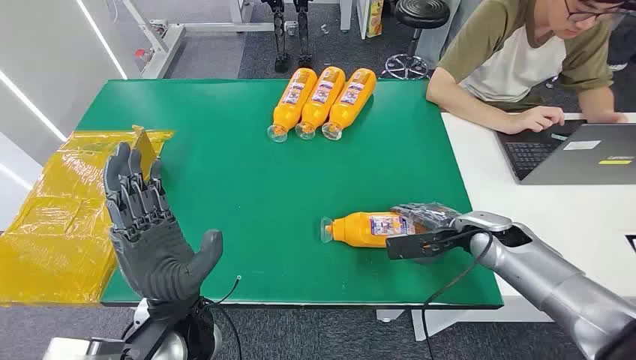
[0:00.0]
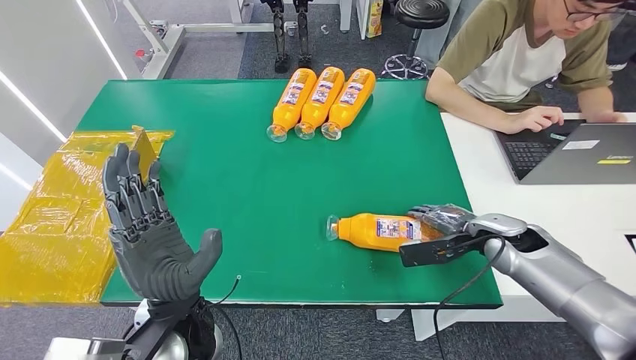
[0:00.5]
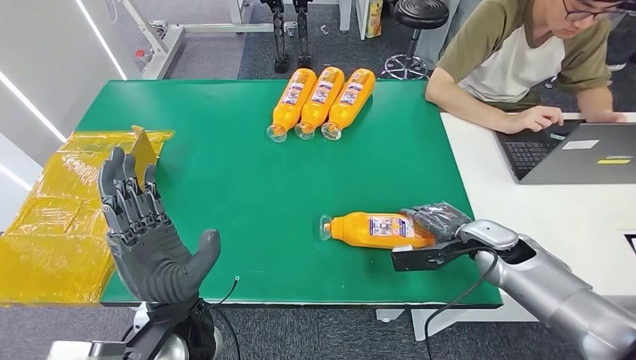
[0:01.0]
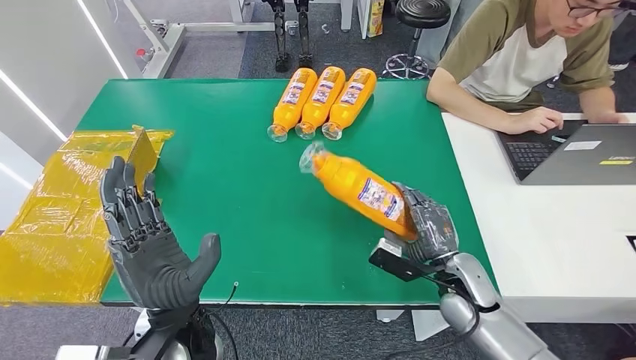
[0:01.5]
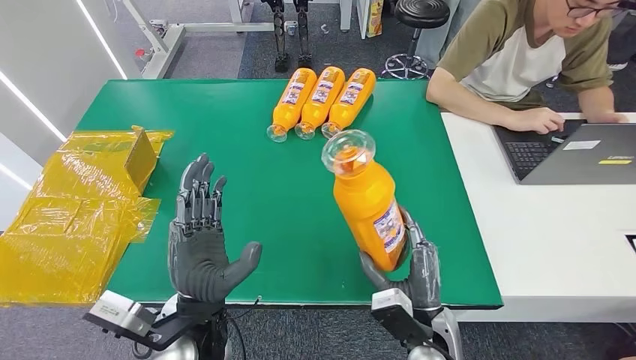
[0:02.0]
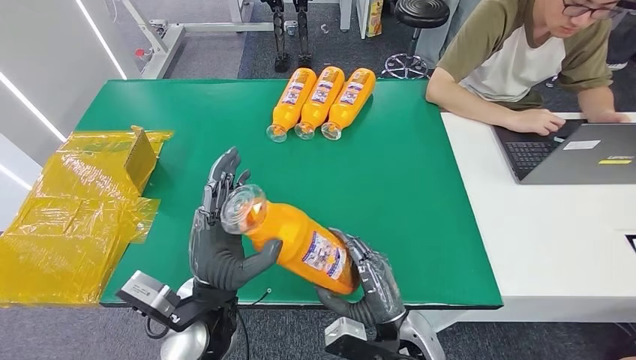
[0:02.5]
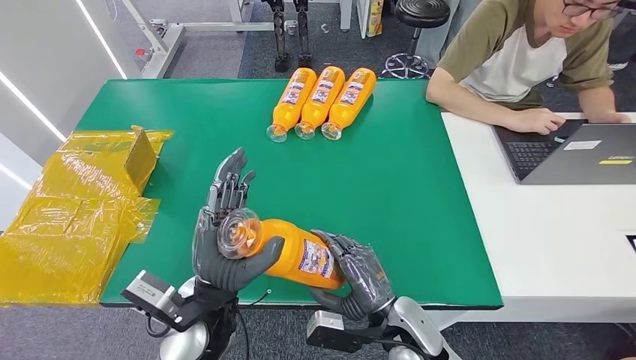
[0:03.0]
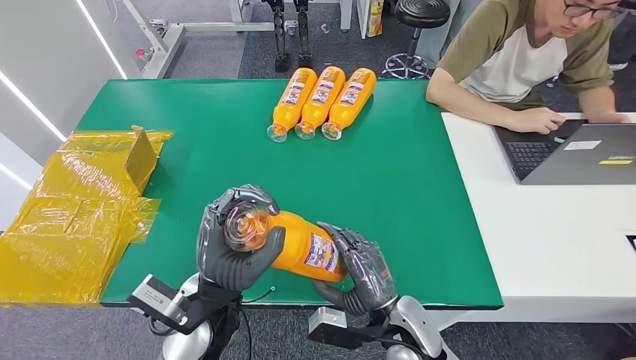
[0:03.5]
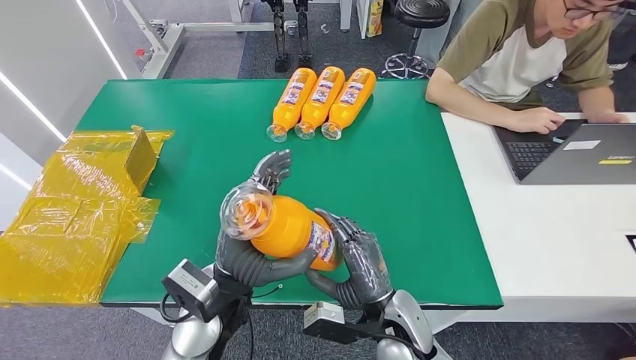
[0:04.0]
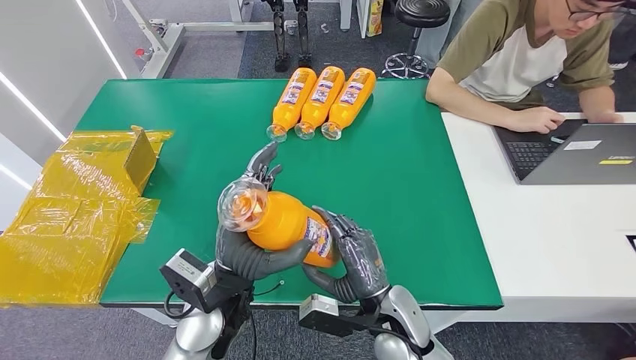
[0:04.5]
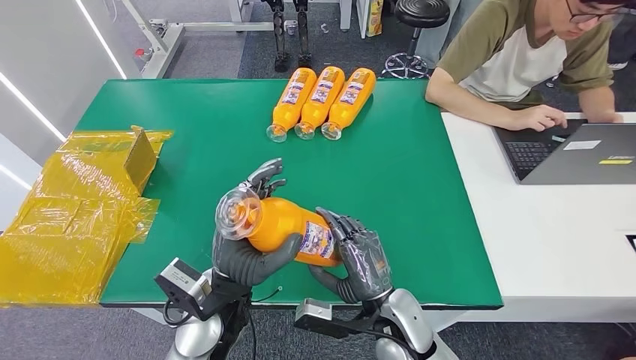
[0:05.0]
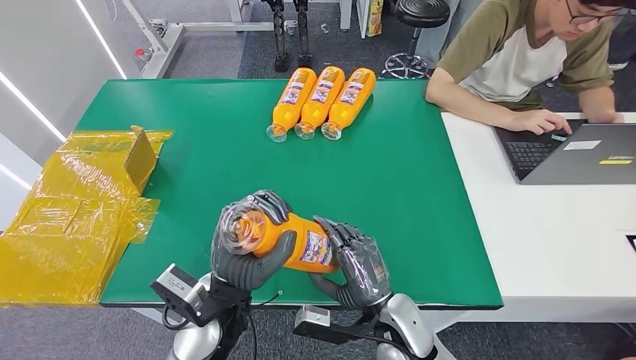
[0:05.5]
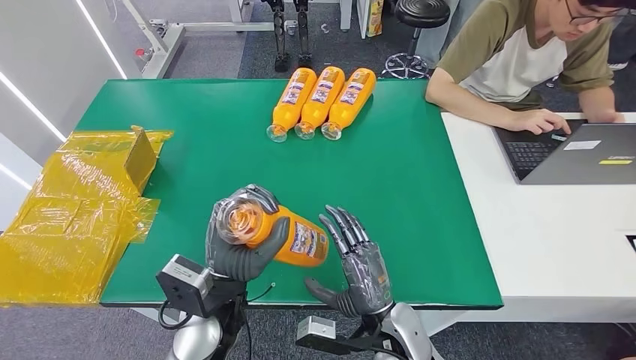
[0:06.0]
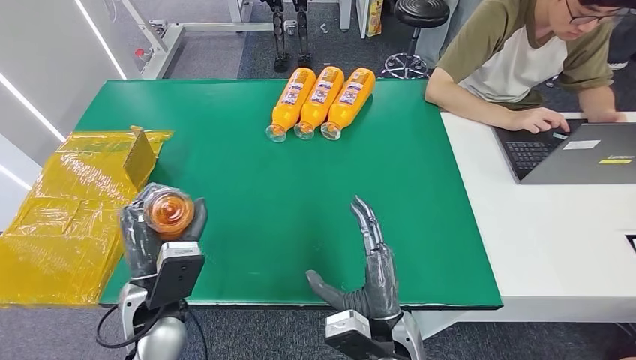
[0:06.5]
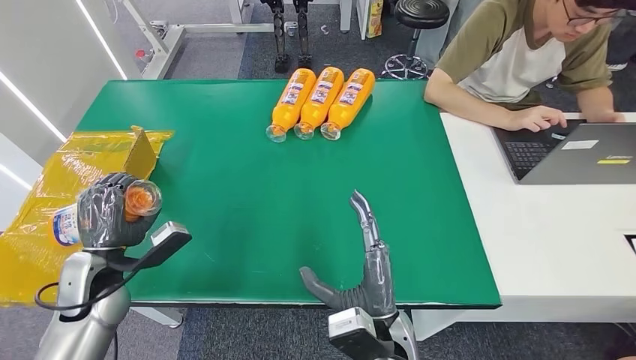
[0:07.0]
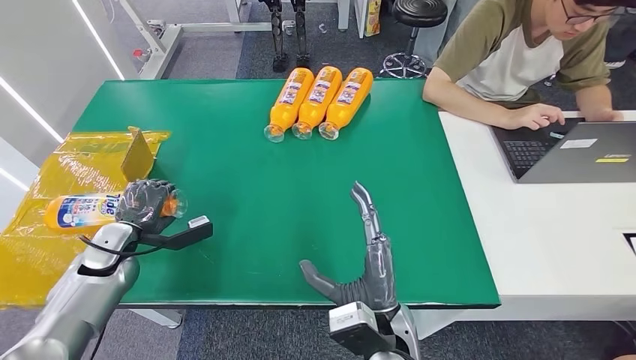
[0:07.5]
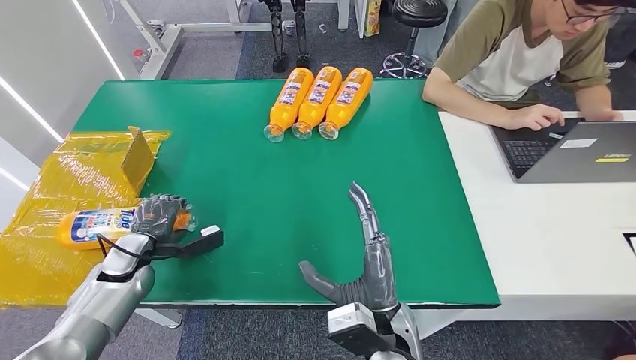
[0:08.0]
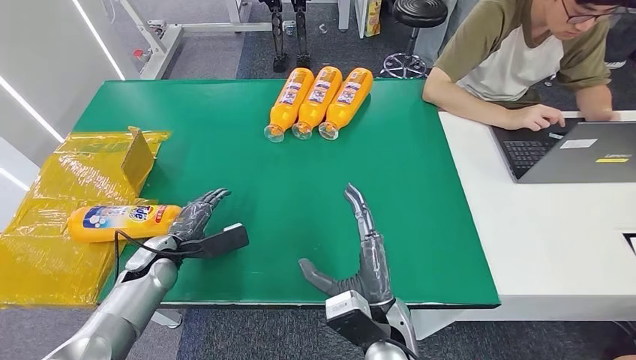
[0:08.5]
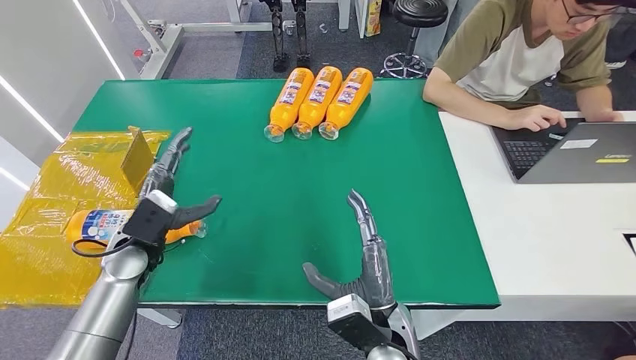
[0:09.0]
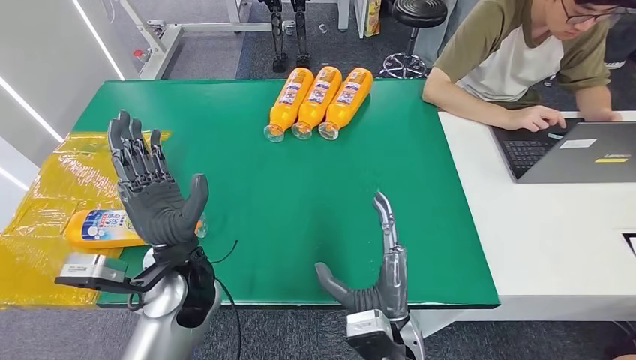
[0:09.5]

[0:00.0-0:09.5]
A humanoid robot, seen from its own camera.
Step, 0:00.0 to 0:03.0: Pick up the bottle from the table.
Step, 0:03.5 to 0:09.5: Turn the bottle to the front side.
0:02.0 to 0:04.0: The right hand heads to the left, covering approximately 5 cm.
0:04.0 to 0:05.5: The hands make only small movements.
0:07.5 to 0:09.5: The left hand shifts approximately 25 cm to the right.
